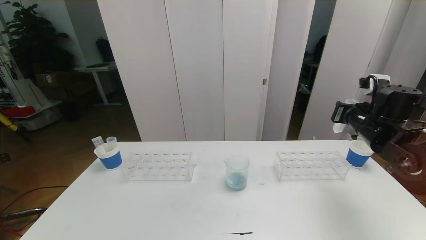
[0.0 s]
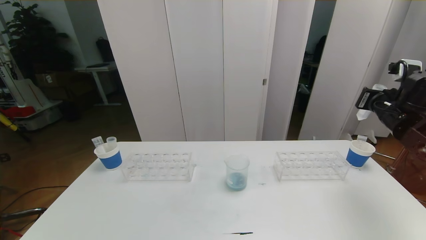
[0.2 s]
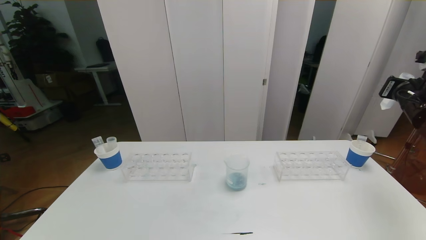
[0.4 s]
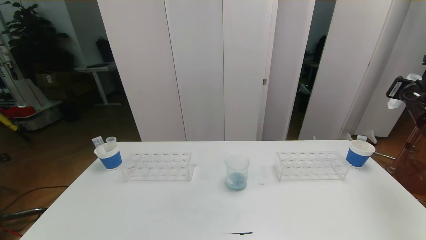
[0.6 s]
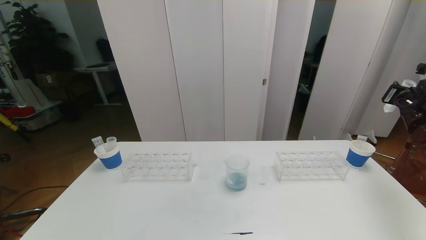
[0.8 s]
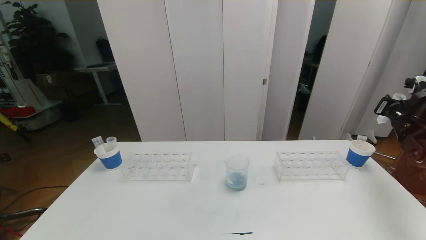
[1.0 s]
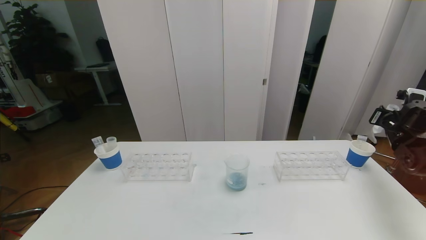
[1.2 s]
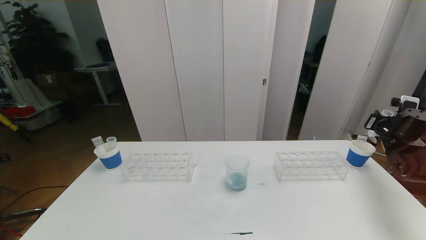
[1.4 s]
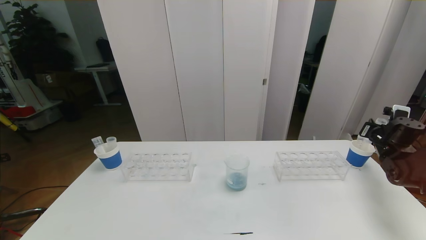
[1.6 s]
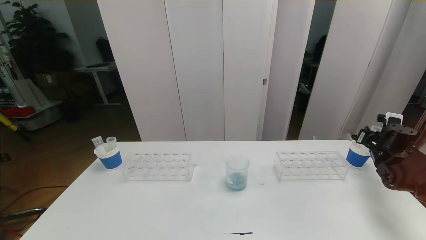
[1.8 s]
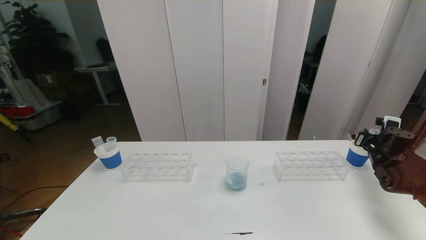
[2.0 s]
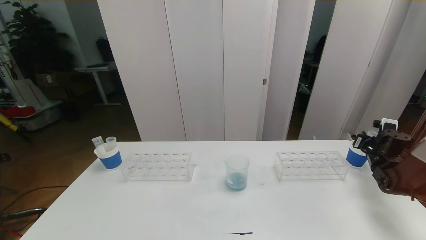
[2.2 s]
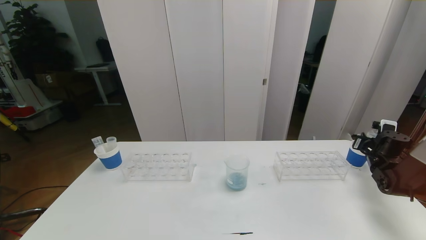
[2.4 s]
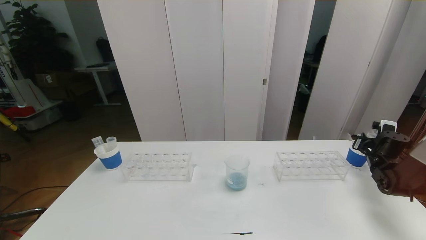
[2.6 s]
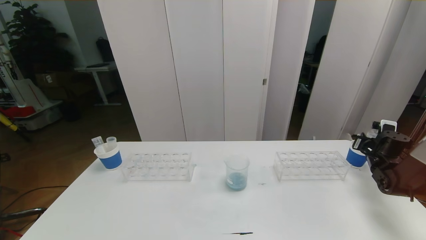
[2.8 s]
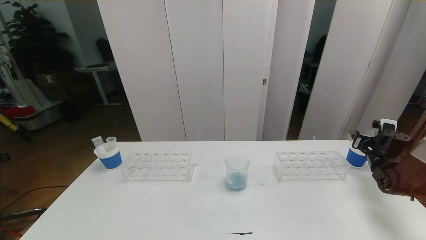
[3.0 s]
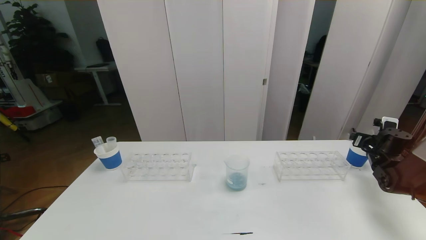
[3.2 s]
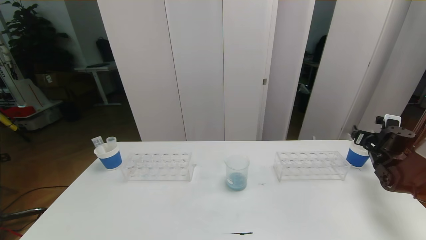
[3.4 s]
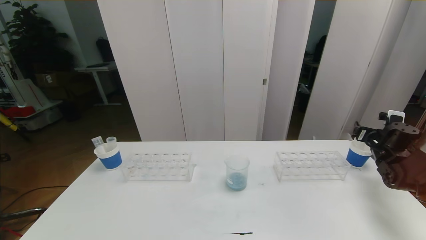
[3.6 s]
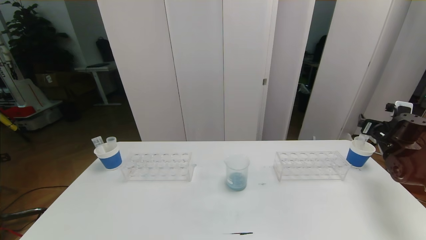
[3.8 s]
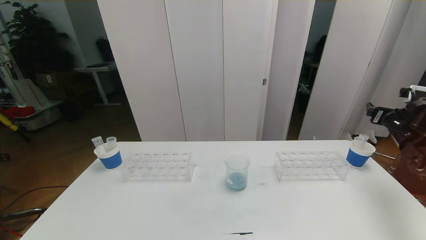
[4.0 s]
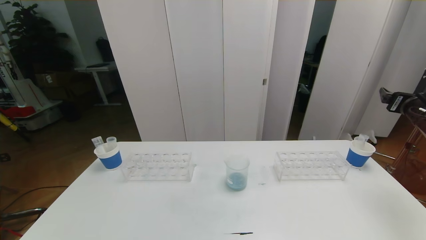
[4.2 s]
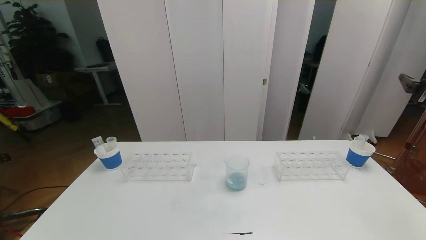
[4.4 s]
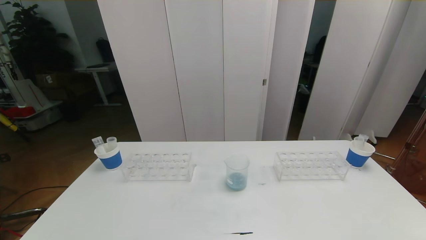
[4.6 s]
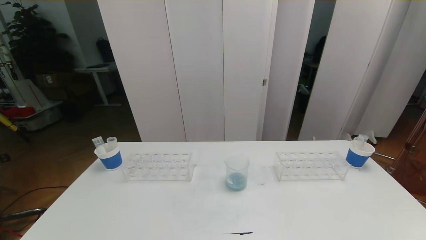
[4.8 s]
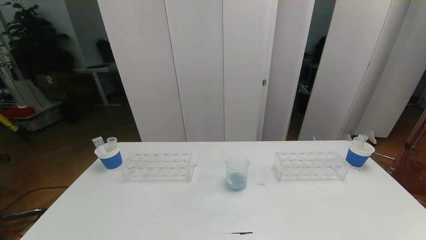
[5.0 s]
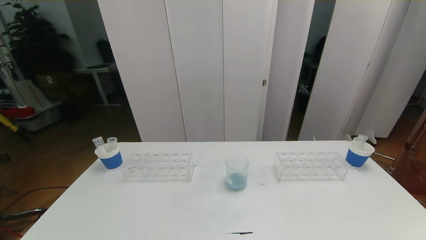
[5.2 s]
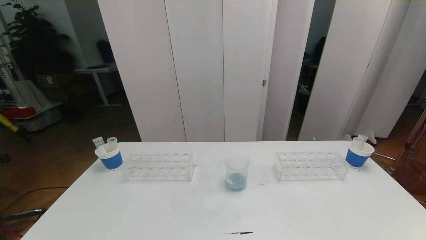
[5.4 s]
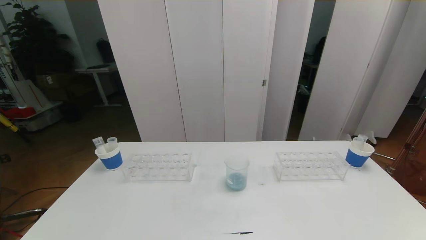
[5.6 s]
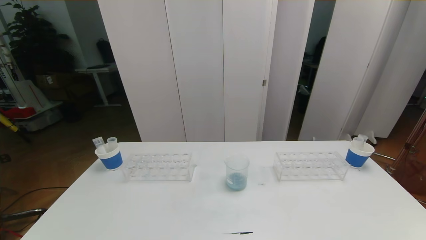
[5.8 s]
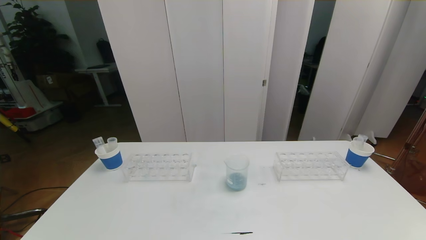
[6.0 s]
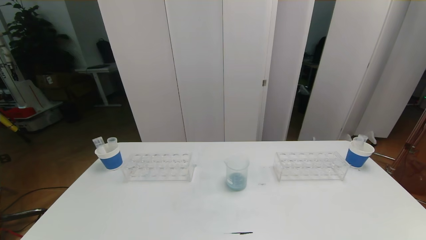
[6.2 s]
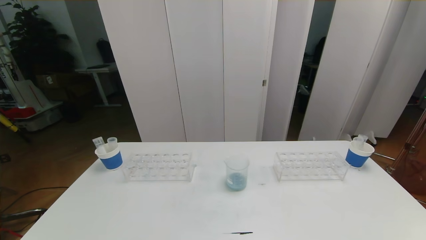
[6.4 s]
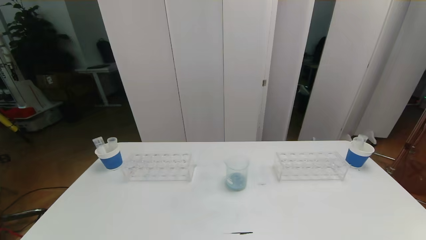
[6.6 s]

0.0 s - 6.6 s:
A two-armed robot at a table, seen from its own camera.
Task of the whole recording: pick up the test tube with red pigment the test tube with blue pigment and the test tube with white pigment by grippers and pour them into the beaker.
Step, 0.0 s - 6.6 s: Pour the white reagent into the graduated cylinder and place the test tube into the paper cup.
0.0 s - 1.6 s: The right gripper moves to the right, downward and forward, roughly 20 cm.
1.6 s - 3.2 s: The right gripper opens up.
3.2 s - 5.0 s: The right gripper heads backward and upward, covering some 40 cm.
